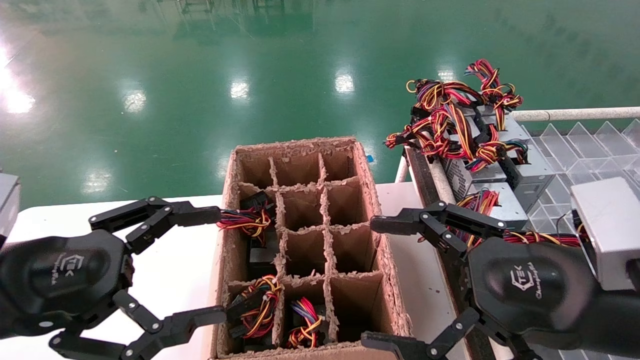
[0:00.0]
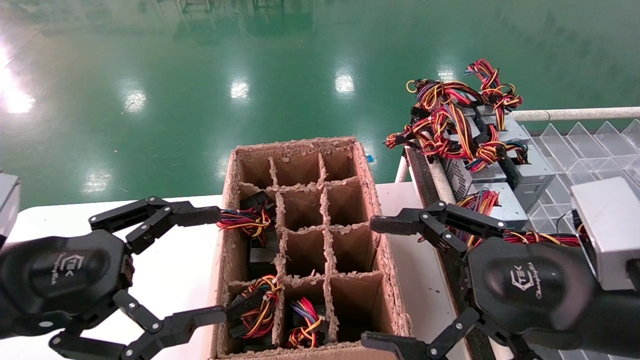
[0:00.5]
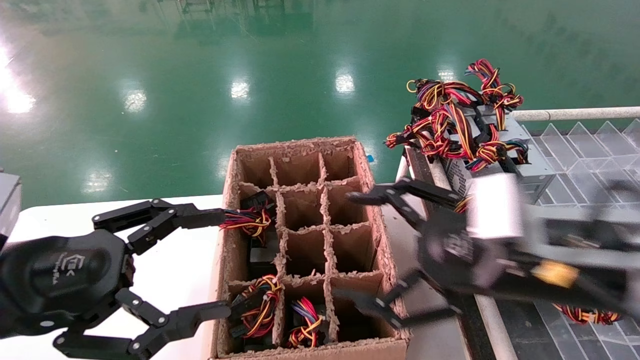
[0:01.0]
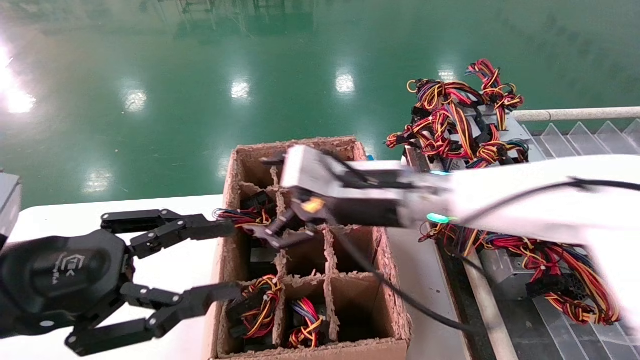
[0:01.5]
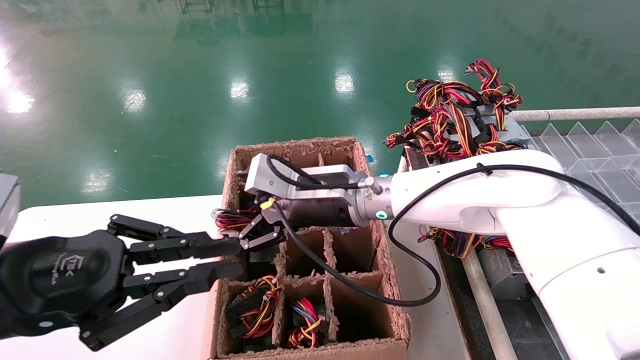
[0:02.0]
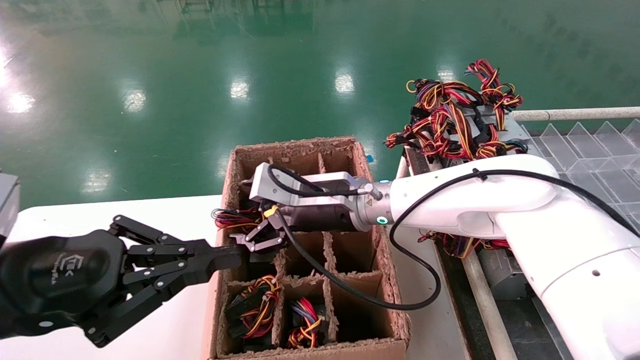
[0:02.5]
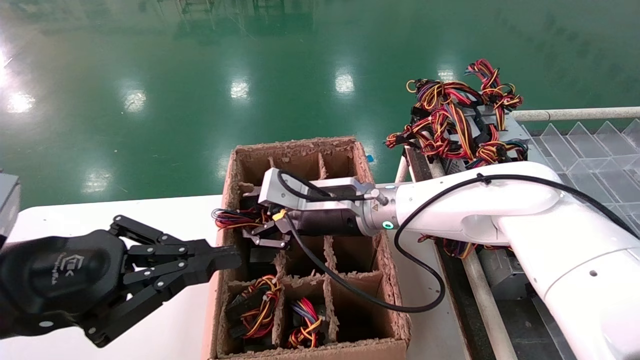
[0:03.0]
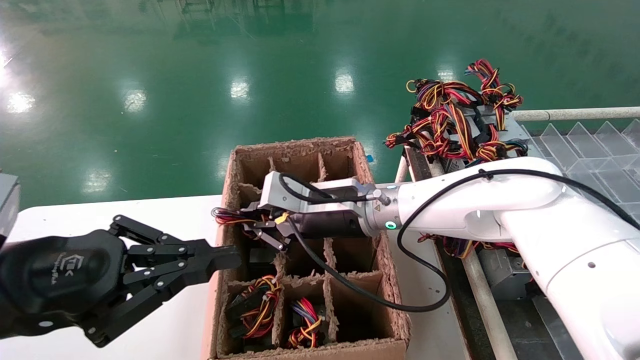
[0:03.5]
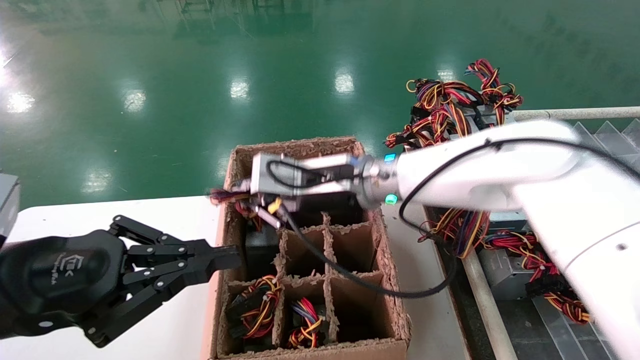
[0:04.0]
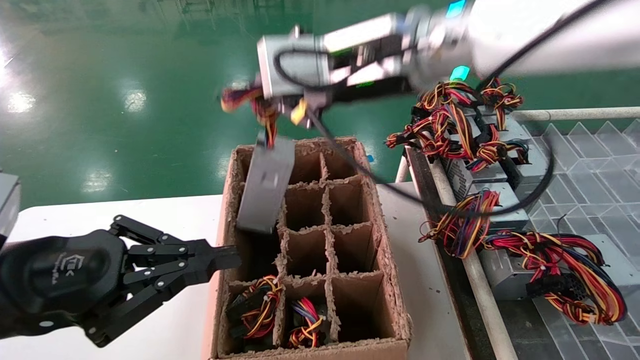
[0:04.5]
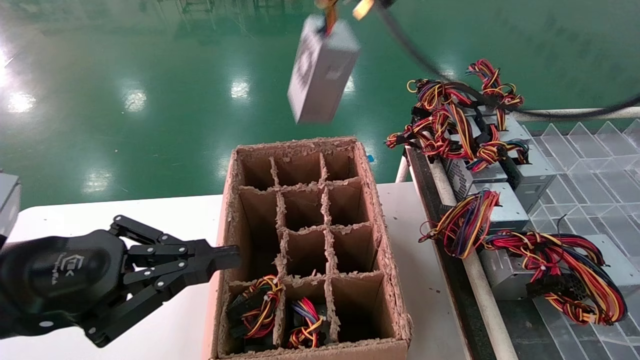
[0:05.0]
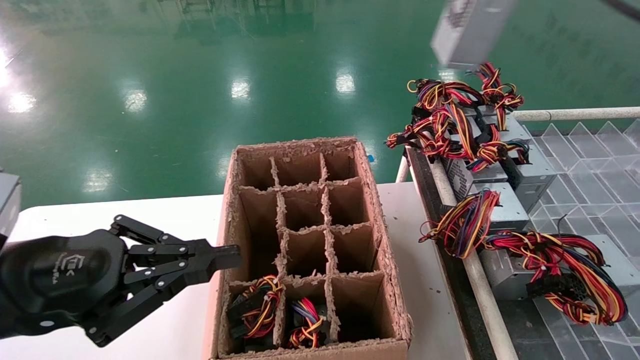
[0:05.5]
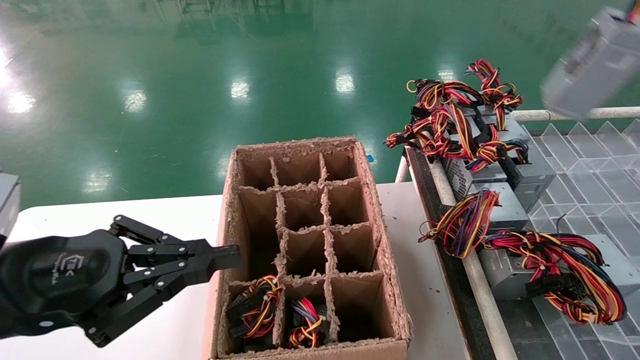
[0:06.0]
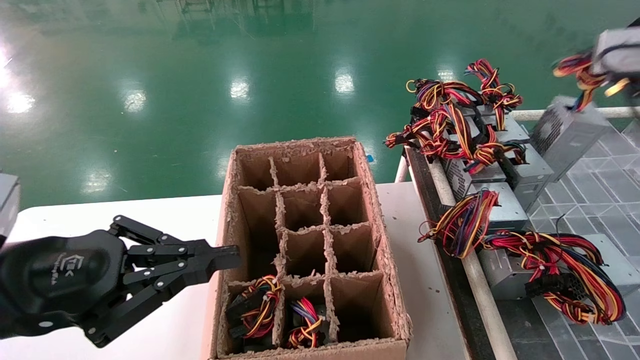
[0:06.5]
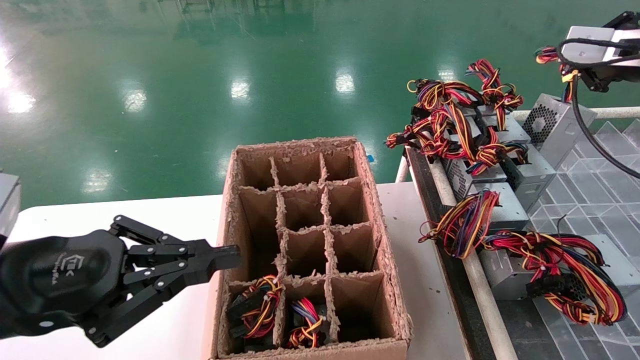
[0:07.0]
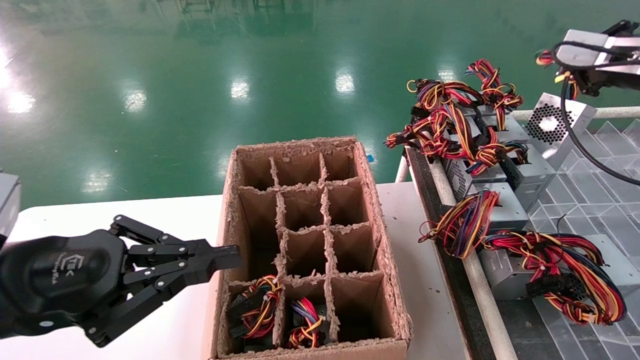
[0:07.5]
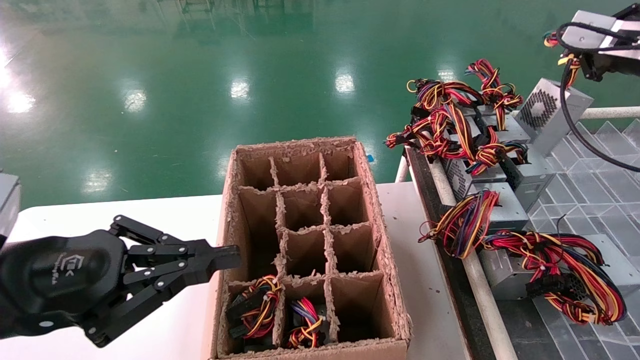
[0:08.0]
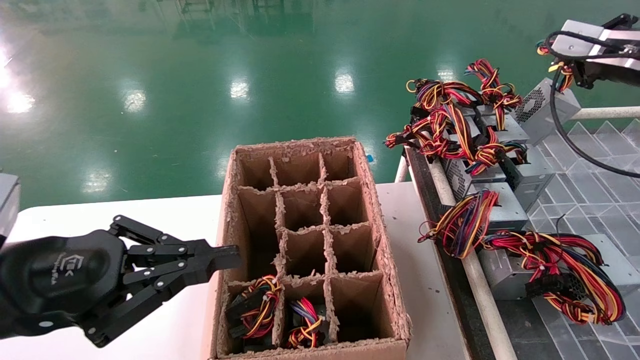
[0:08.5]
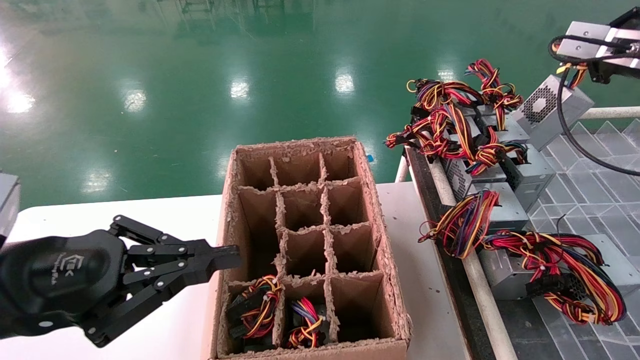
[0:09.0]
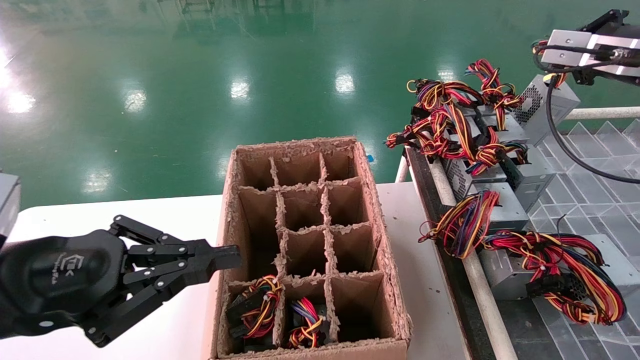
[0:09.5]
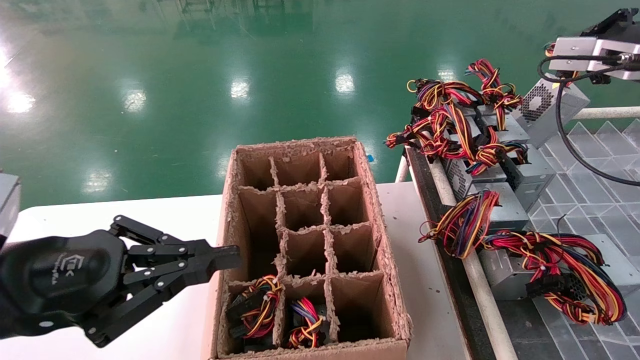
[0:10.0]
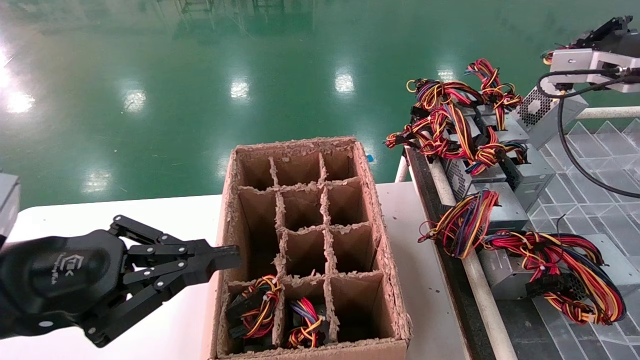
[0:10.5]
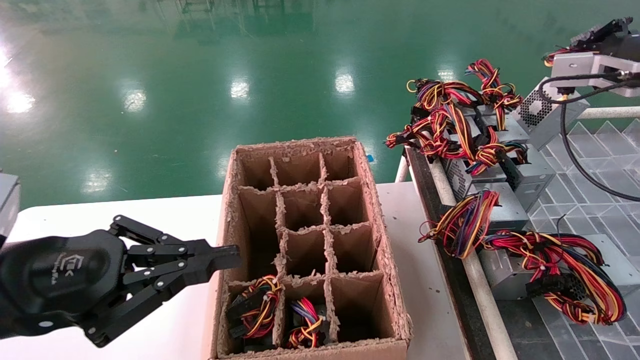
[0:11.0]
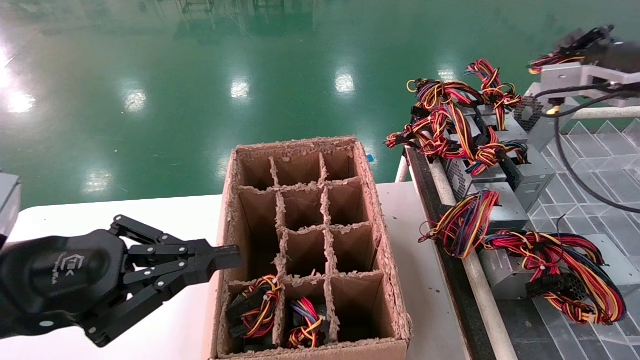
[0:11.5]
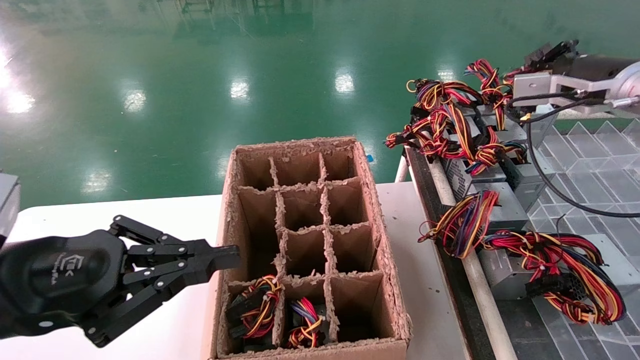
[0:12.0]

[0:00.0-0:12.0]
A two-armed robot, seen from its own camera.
Step, 0:01.5 to 0:03.5: Grab the main unit power supply from the containment box.
0:00.0 to 0:02.0: The left gripper closes its fingers. The right gripper moves forward and to the left, roughly 30 cm.
0:02.0 to 0:04.0: The right gripper moves some 5 cm, and closes.
0:04.0 to 0:06.0: The right gripper goes about 40 cm to the right, upward and backward.
0:06.0 to 0:08.0: The right gripper is displaced forward and downward by some 20 cm.
0:08.0 to 0:10.0: The grippers stay close to where they were, moving slightly.
0:10.0 to 0:12.0: The grippers make only small movements.

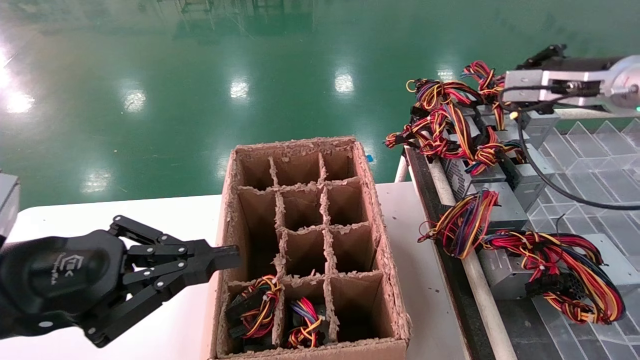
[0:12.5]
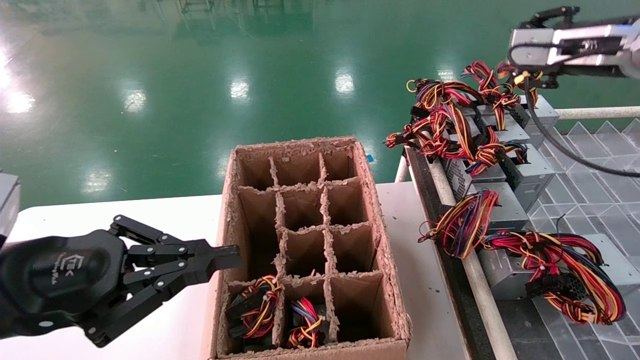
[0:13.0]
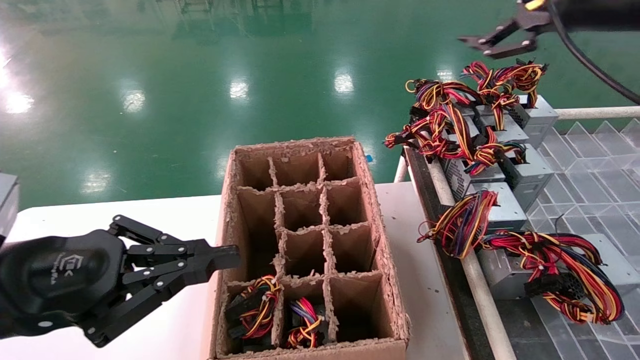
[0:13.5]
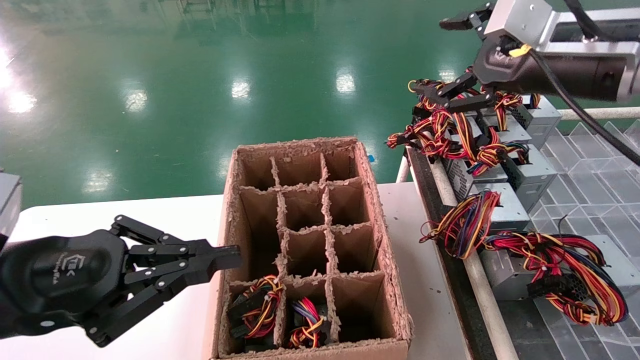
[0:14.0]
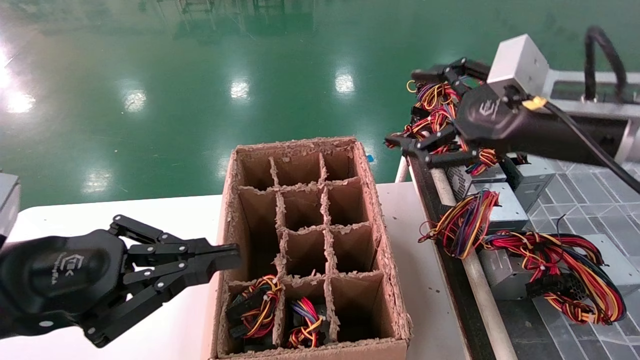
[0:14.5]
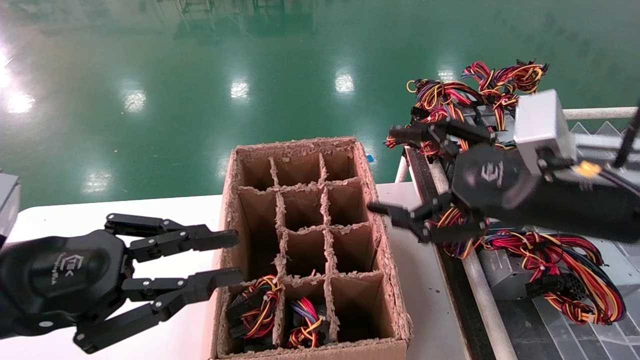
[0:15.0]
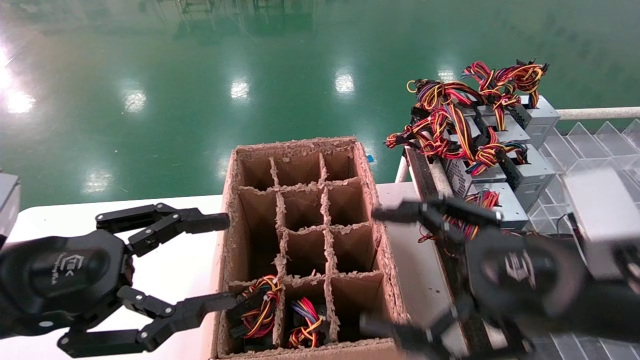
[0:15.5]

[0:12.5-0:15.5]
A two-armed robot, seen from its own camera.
0:12.5 to 0:14.0: The right gripper is displaced to the left and backward by about 15 cm, and opens up.
0:14.0 to 0:15.5: The left gripper opens up. Meanwhile the right gripper travels downward and backward by some 20 cm.

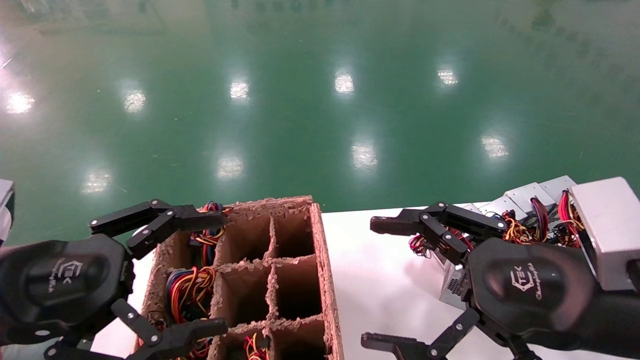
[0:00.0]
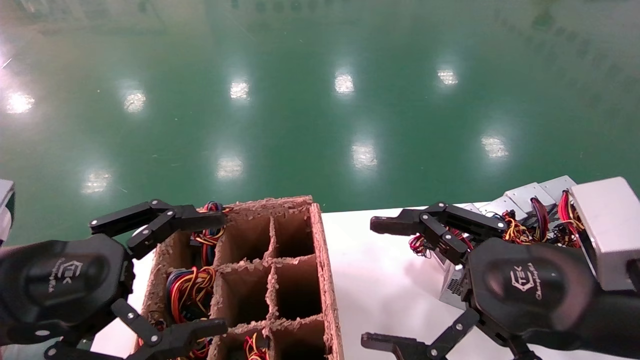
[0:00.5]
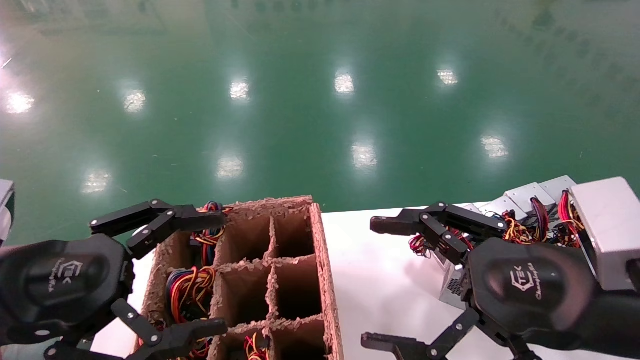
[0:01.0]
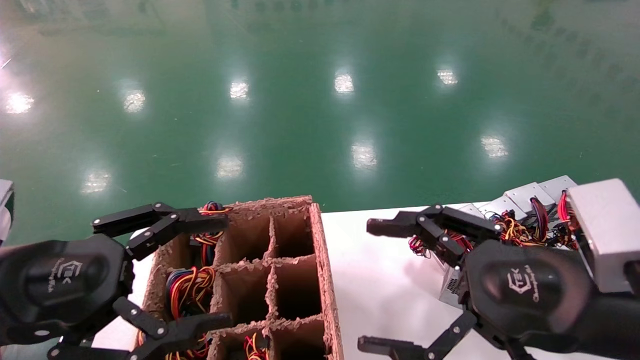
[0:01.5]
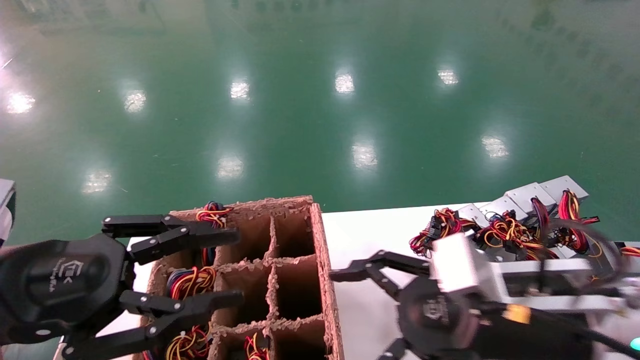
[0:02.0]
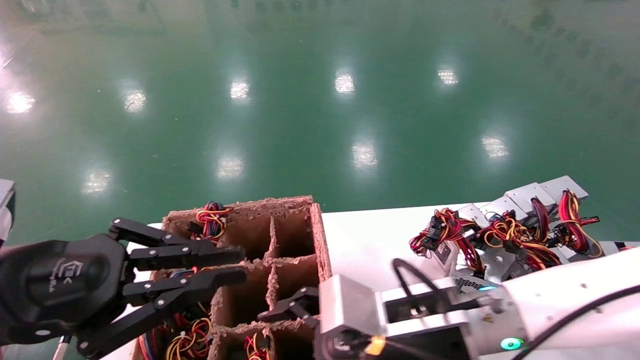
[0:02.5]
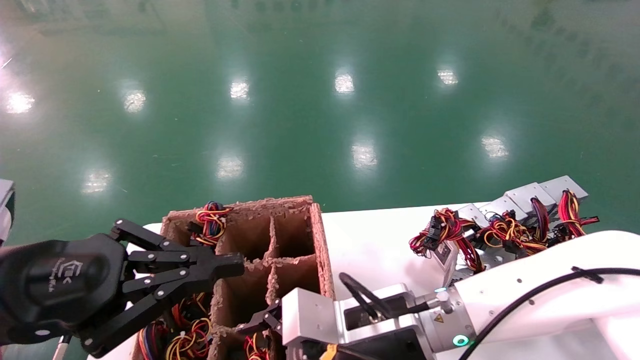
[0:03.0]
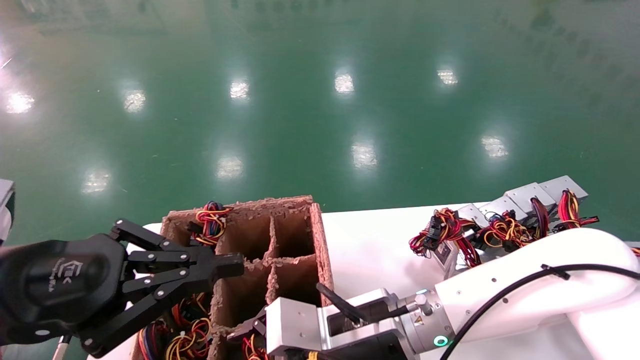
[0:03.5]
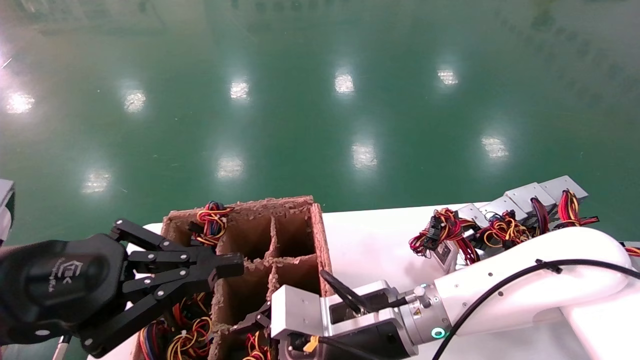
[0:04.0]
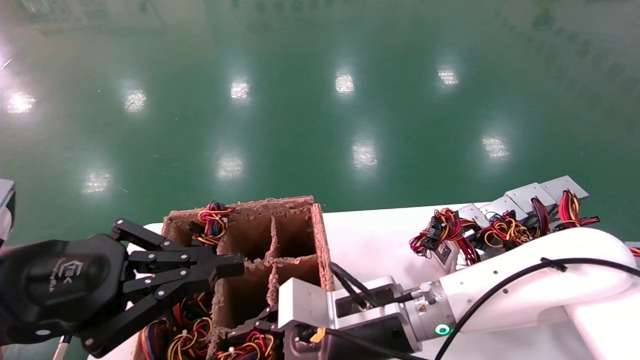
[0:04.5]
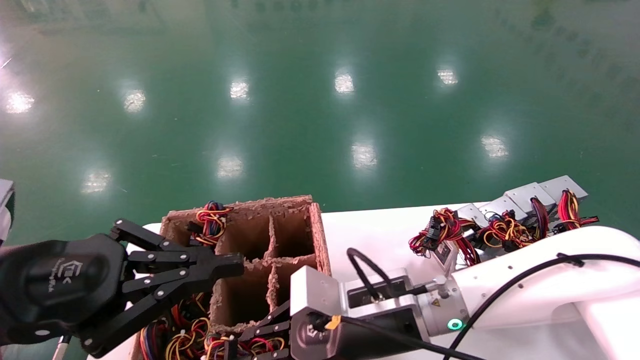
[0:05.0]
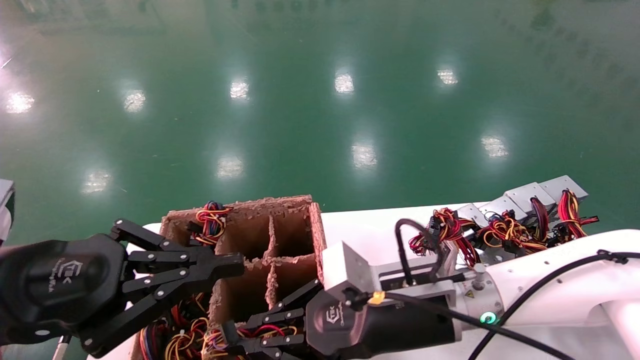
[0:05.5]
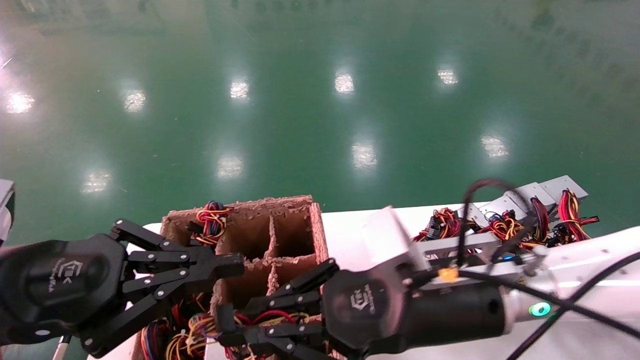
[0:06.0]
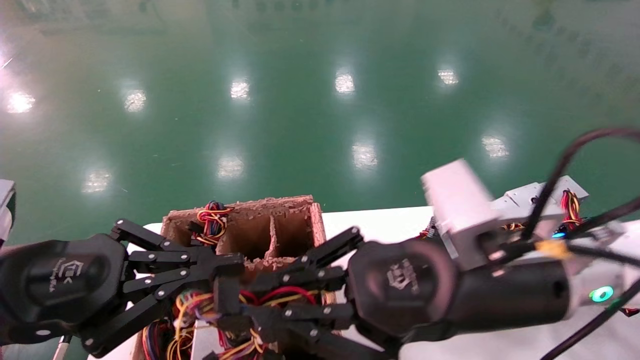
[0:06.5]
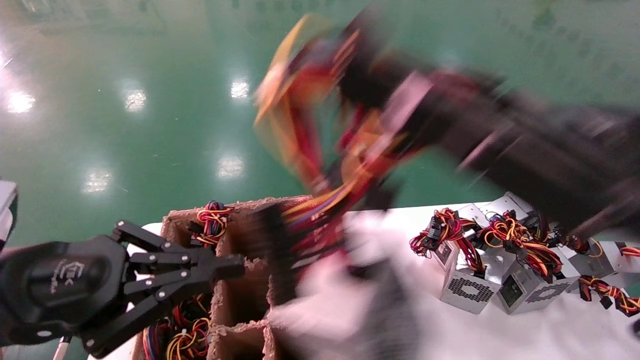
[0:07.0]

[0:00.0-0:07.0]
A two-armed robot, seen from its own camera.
Step, 0:02.0 to 0:05.0: Grab the main unit power supply from the containment box.
0:00.0 to 0:02.0: The left gripper closes its fingers, while the right gripper ends up approximately 10 cm from where it was.
0:02.0 to 0:03.5: The right gripper heads to the left and downward, covering approximately 15 cm. The left gripper closes its fingers.
0:03.5 to 0:05.0: The right gripper closes up.
0:05.0 to 0:07.0: The right gripper shifts about 25 cm upward, to the right and backward.
